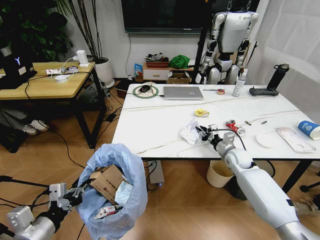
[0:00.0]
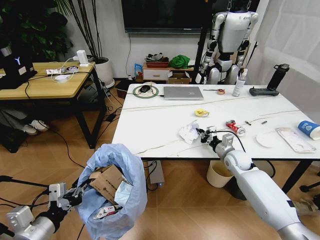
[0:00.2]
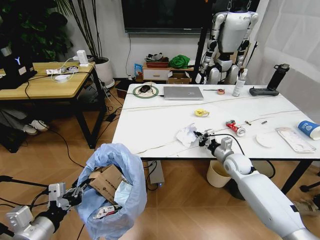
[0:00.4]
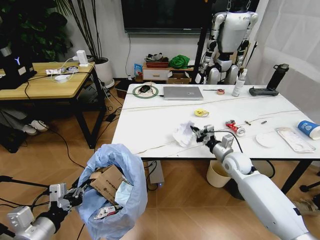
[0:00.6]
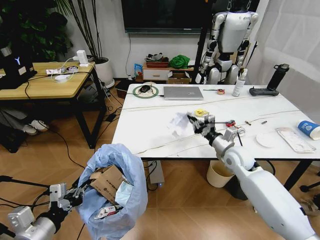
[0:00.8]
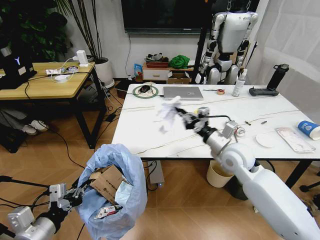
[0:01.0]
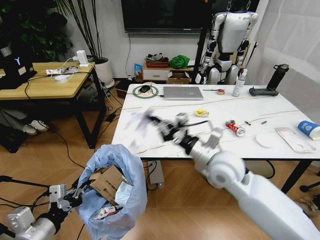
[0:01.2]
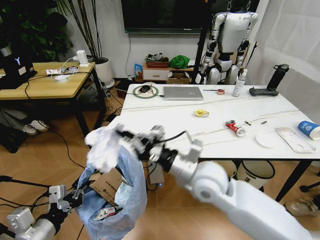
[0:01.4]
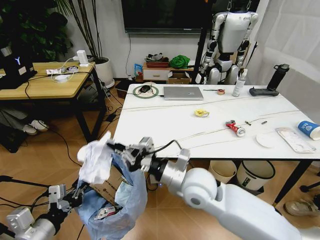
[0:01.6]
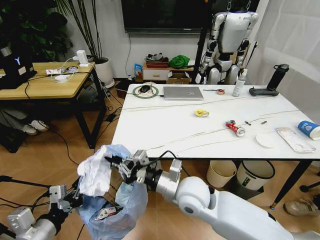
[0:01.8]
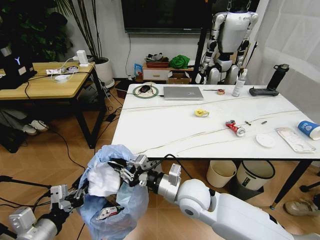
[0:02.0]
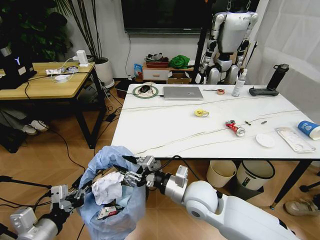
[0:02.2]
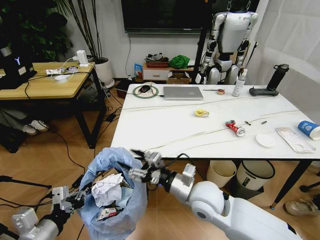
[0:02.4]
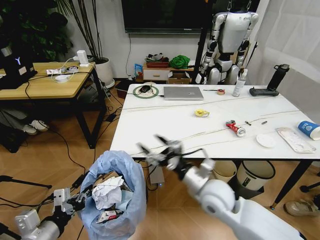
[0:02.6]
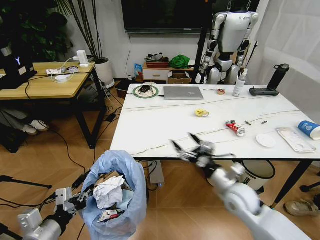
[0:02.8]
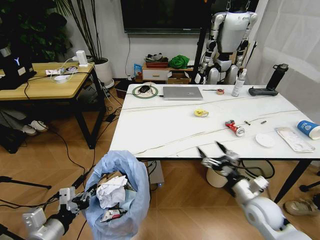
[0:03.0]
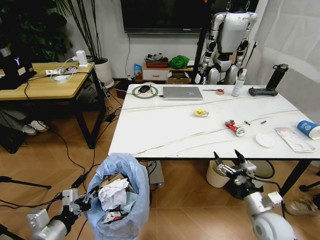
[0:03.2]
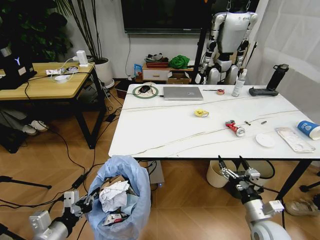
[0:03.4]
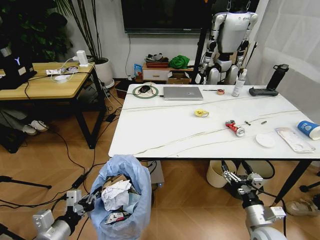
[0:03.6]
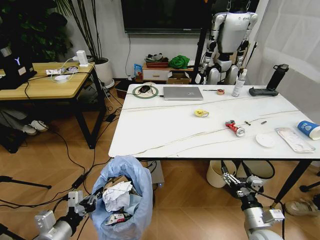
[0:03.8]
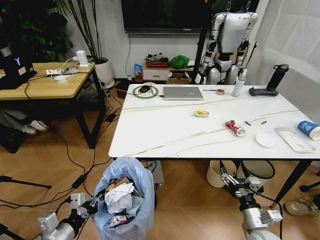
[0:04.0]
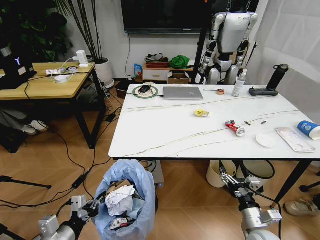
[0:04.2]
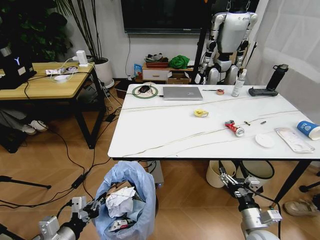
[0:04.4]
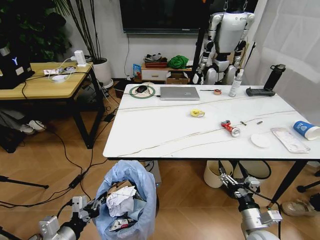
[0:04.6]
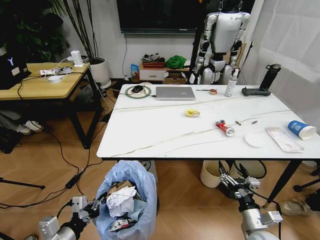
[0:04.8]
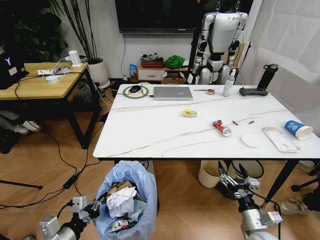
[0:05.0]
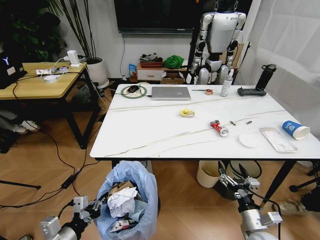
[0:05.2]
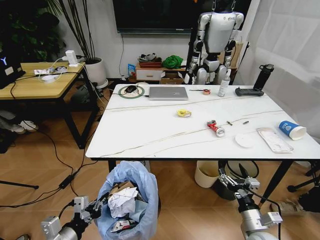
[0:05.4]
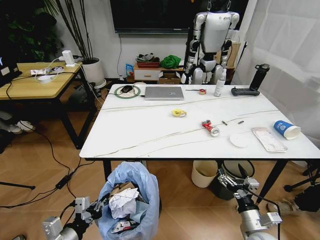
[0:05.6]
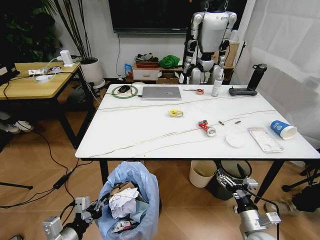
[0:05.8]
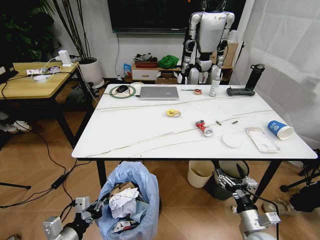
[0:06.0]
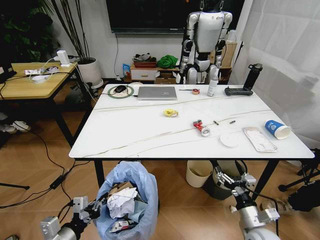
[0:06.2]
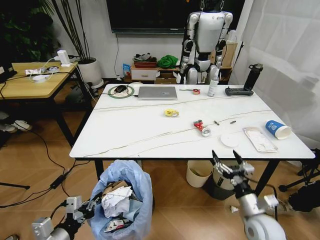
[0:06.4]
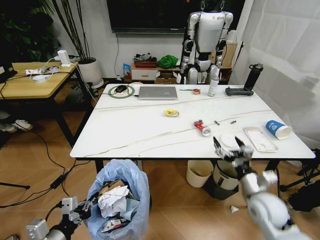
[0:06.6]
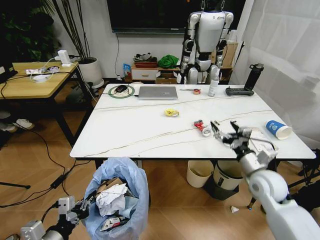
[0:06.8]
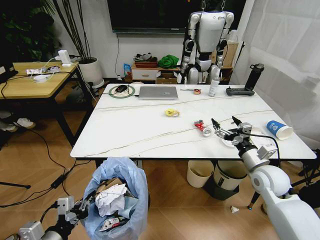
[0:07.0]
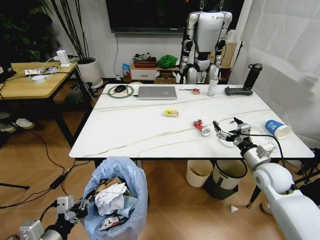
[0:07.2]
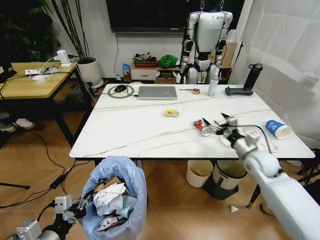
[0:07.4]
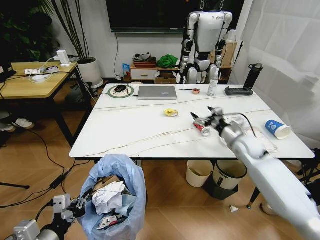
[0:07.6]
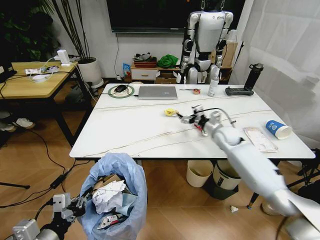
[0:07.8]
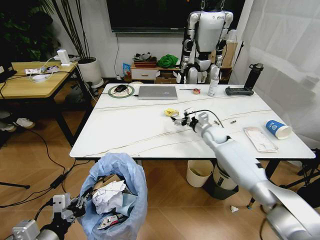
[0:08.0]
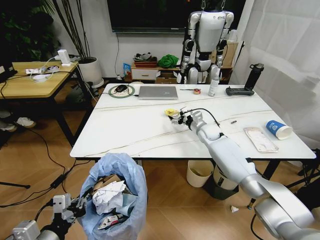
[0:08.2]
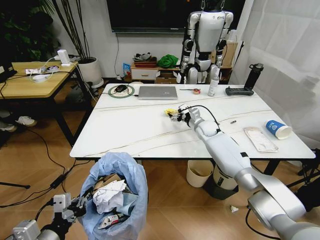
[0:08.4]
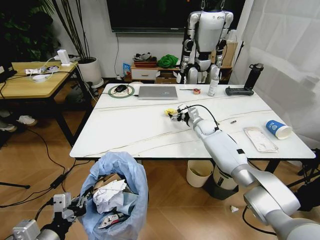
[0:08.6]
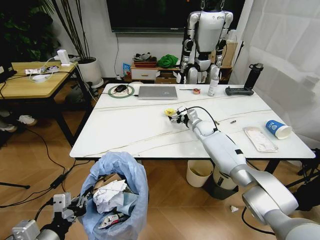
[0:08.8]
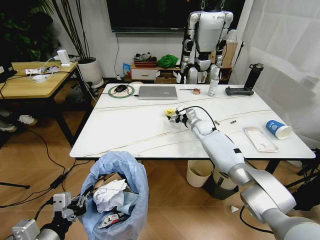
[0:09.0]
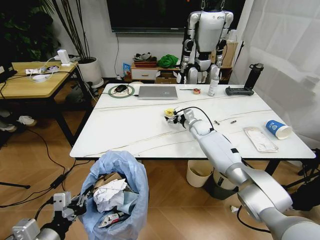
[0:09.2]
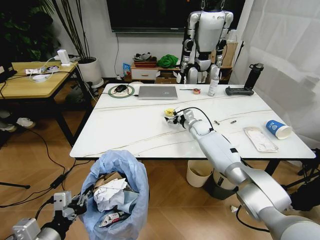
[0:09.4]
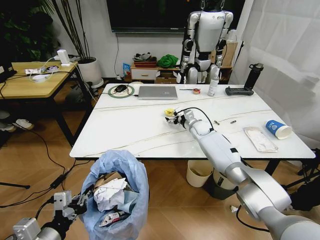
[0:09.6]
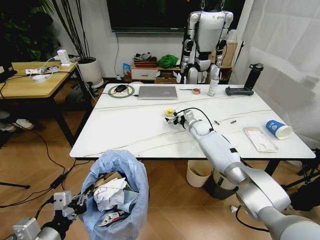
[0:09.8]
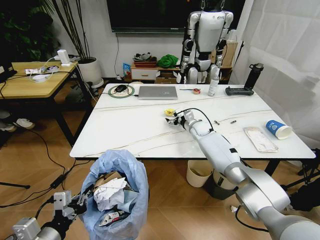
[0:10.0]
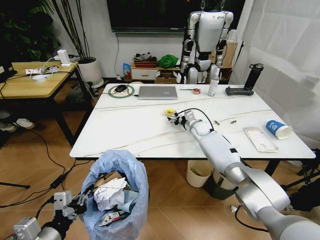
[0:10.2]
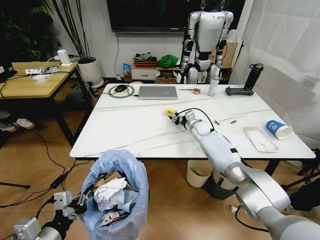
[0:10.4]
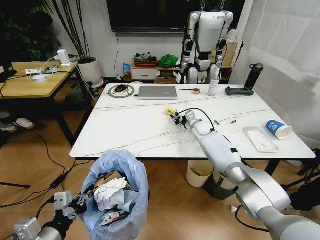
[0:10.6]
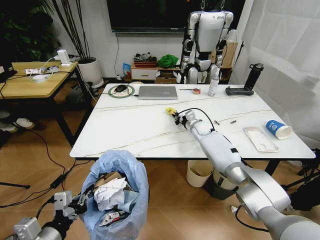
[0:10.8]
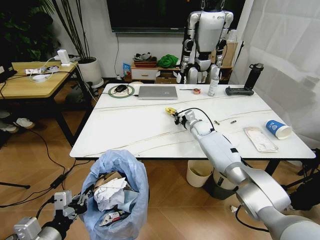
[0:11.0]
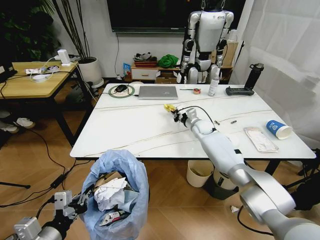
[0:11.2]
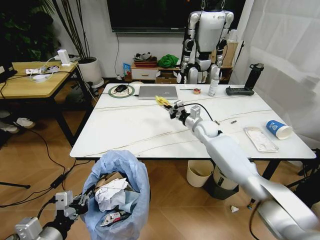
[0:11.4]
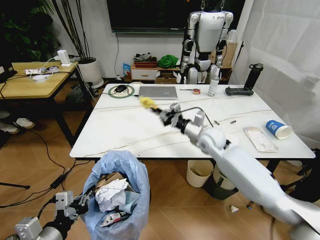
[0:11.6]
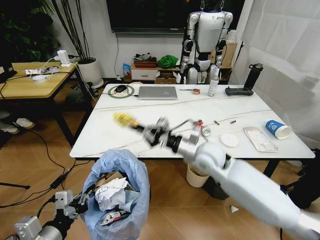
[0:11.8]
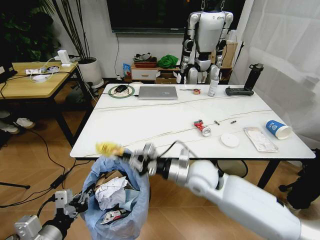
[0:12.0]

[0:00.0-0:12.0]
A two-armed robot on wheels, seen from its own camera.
Task of the whole recording: Pick up the trash bin and place the trash from the table into it.
0:00.0 to 0:01.6: The right gripper shifts some 30 cm to the left, backward and upward.
0:01.6 to 0:03.0: The right gripper goes approximately 25 cm to the right and downward, and opens.
0:03.0 to 0:04.4: The right gripper shifts some 10 cm backward and downward.
0:06.0 to 0:07.6: The right gripper moves forward and upward, roughly 35 cm. Meanwhile the left gripper shifts some 5 cm upward.
0:07.6 to 0:09.0: The right gripper heads forward, to the left and downward, covering about 20 cm.
0:09.0 to 0:10.4: The right gripper closes up.
0:10.4 to 0:12.0: The right gripper shifts about 30 cm backward, and closes up.

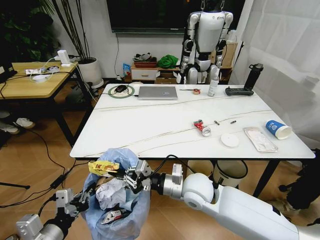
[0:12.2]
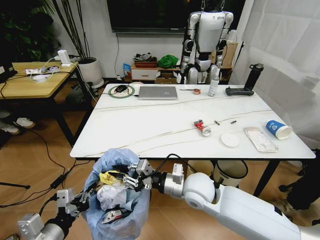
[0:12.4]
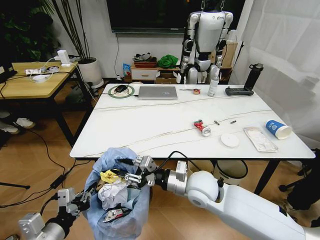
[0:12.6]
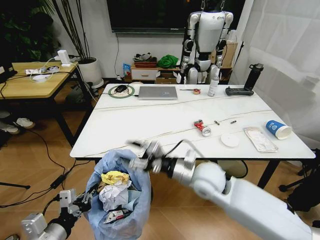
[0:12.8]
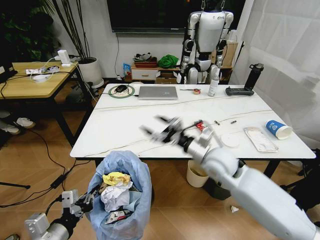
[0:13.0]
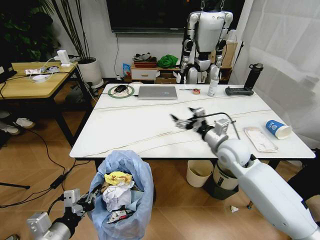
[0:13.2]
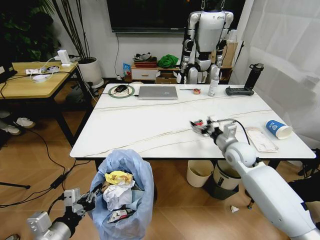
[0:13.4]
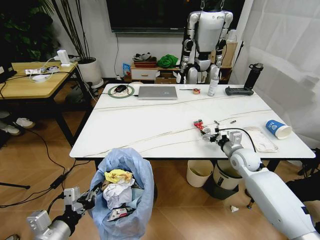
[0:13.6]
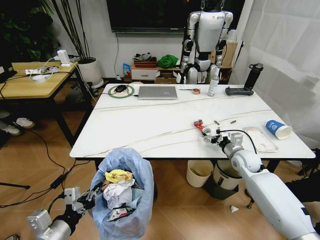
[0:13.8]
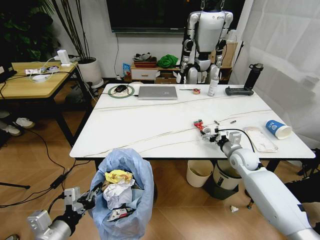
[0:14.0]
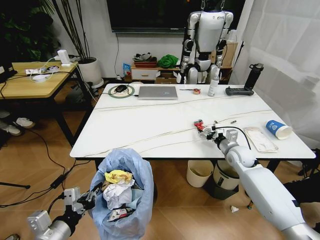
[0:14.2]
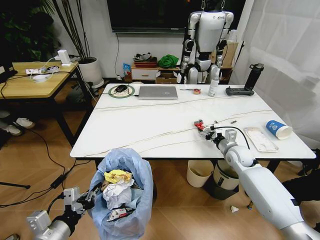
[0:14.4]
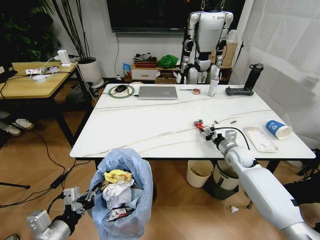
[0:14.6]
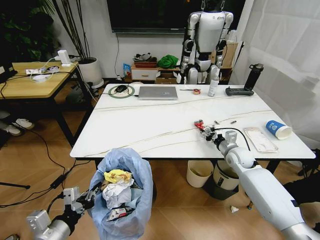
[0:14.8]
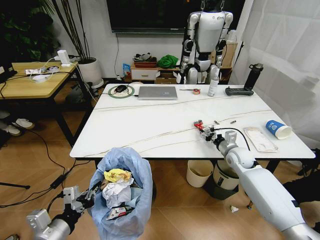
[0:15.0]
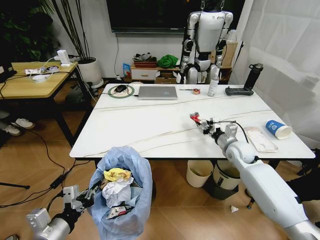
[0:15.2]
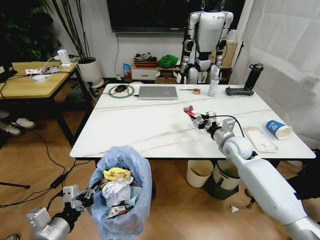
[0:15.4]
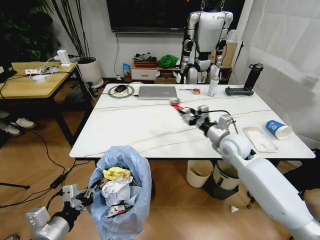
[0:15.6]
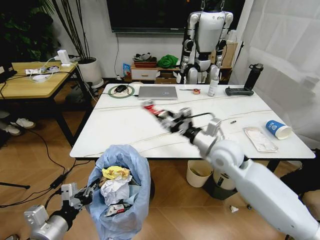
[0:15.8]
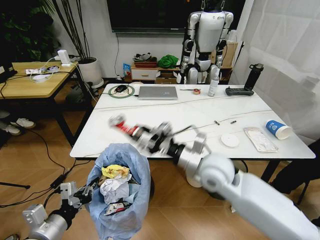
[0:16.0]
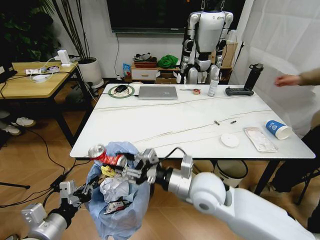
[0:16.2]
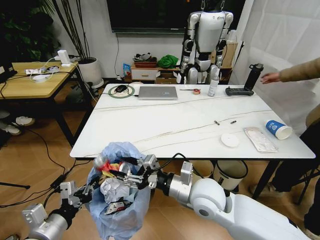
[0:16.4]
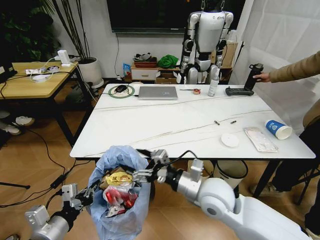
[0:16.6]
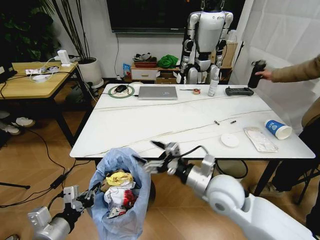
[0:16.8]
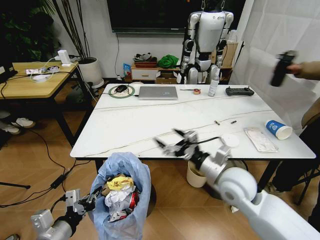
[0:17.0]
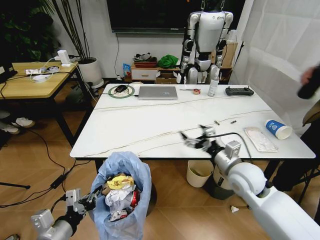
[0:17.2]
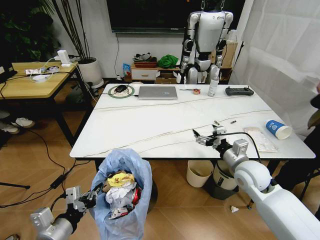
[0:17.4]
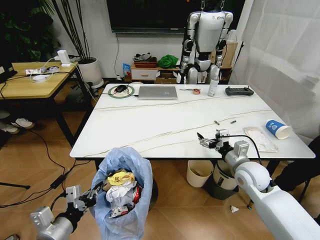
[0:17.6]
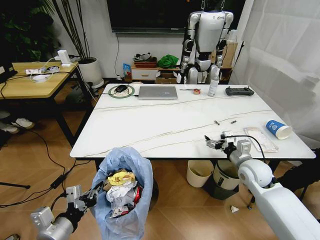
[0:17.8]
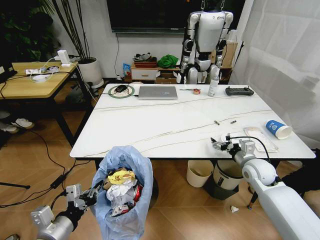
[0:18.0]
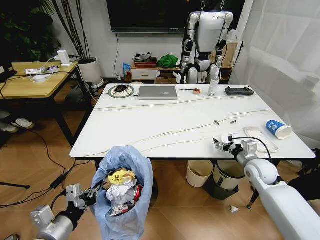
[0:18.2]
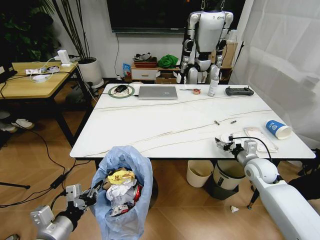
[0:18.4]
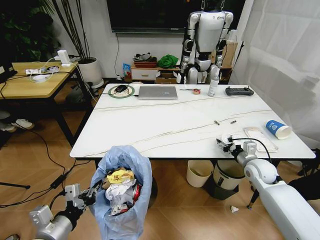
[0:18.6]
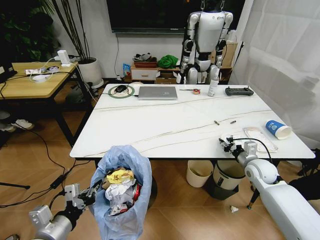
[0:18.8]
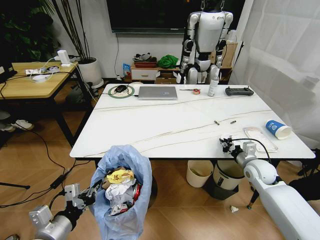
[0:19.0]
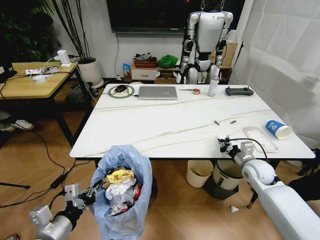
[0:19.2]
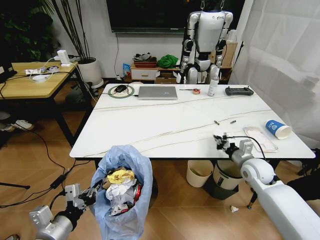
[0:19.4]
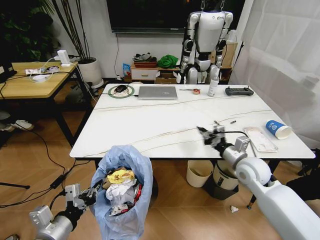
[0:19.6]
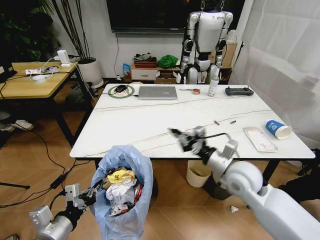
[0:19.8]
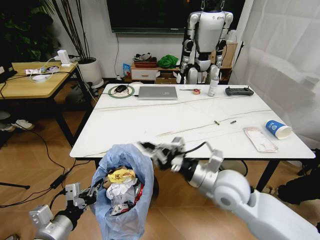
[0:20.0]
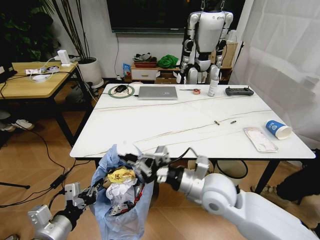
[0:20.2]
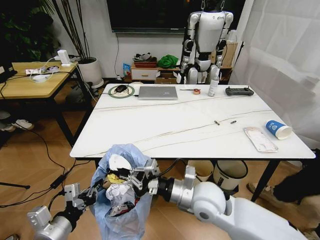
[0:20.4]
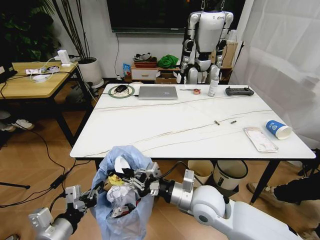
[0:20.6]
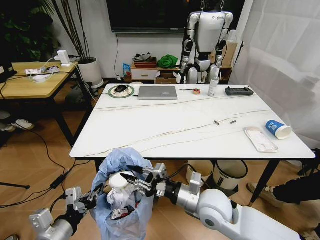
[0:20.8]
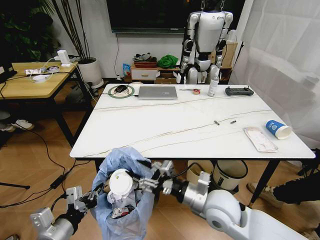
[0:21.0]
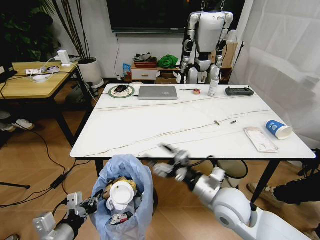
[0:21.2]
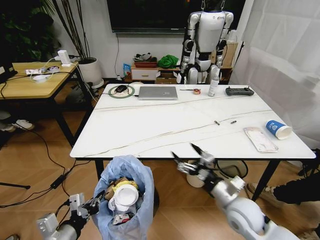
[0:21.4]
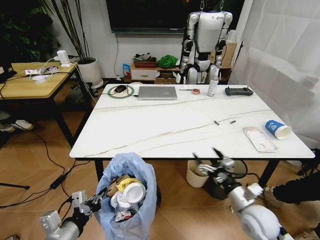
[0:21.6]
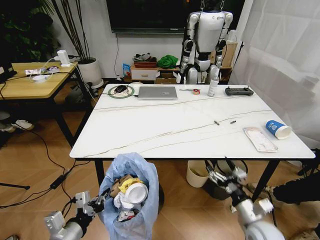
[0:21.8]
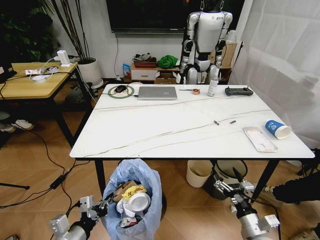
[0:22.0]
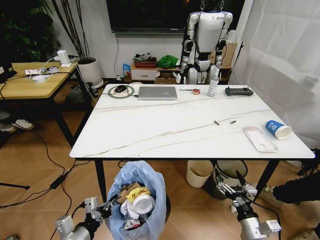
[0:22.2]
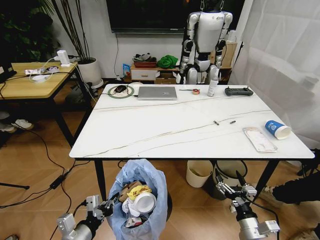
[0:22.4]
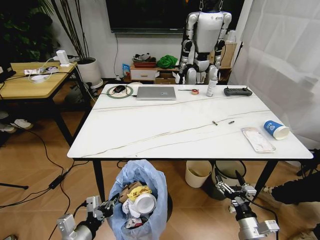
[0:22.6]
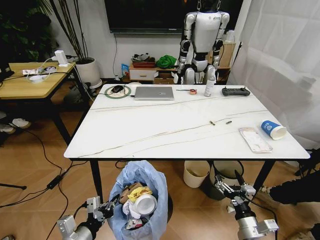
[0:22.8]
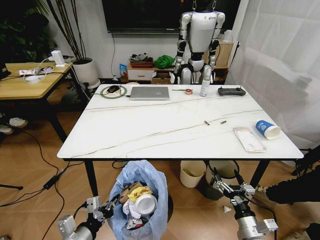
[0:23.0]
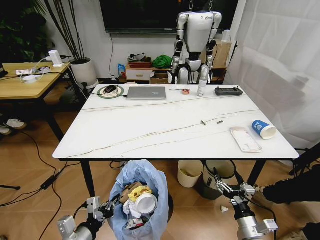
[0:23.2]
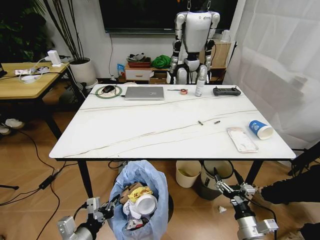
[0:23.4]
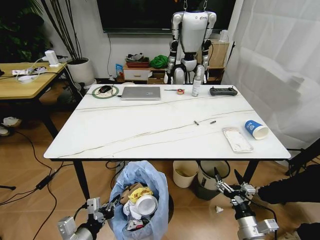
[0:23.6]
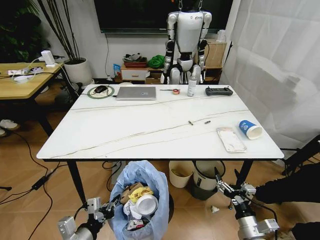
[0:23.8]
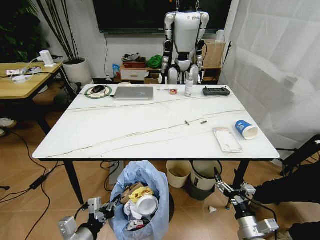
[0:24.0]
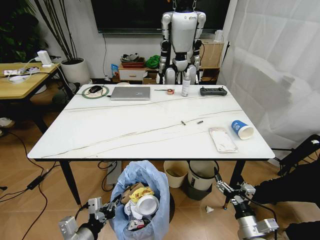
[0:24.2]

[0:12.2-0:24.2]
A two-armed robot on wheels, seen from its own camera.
Task of the whole recording: Pick up the trash bin and place the trash from the table into it.
0:12.2 to 0:13.8: The right gripper moves to the right and forward, approximately 25 cm, and opens up.
0:13.8 to 0:15.2: The right gripper closes its fingers.
0:15.2 to 0:16.6: The right gripper is displaced backward and to the left by some 25 cm.
0:16.6 to 0:18.2: The right gripper moves to the right and forward, roughly 25 cm.
0:18.2 to 0:19.8: The right gripper goes about 15 cm to the left, upward and backward, and closes up.
0:19.8 to 0:21.2: The right gripper moves backward, roughly 5 cm, and opens up.
0:21.2 to 0:22.6: The left gripper shifts by about 5 cm, while the right gripper travels downward, to the right and backward by roughly 20 cm.
